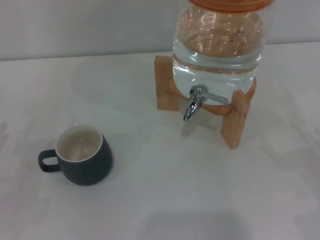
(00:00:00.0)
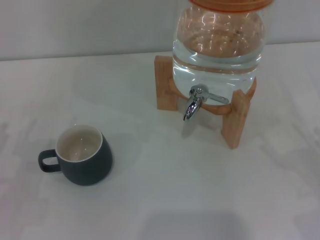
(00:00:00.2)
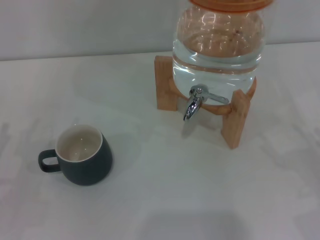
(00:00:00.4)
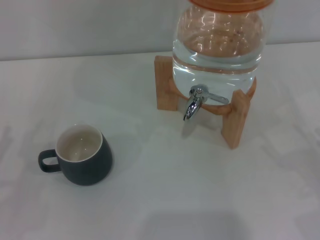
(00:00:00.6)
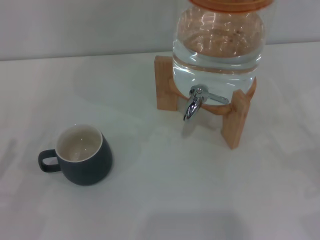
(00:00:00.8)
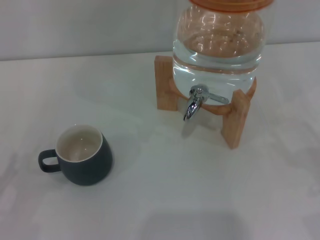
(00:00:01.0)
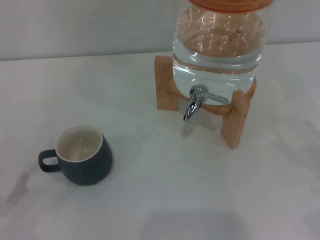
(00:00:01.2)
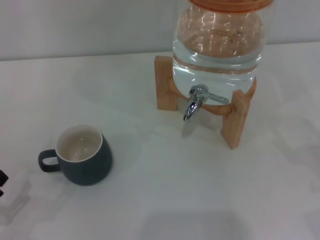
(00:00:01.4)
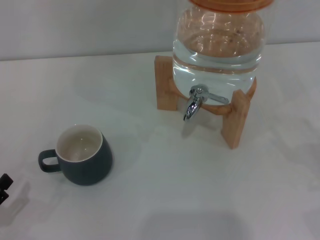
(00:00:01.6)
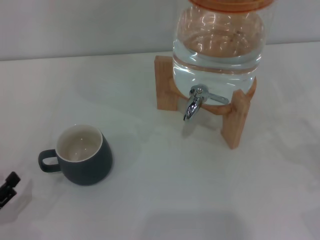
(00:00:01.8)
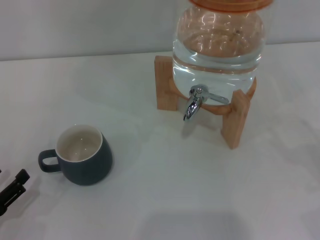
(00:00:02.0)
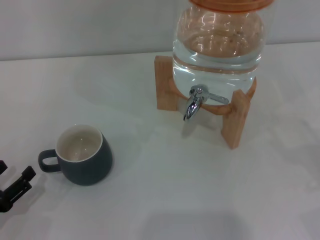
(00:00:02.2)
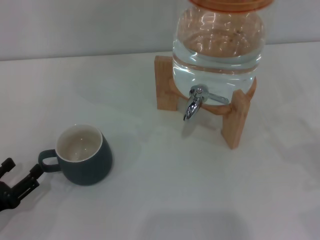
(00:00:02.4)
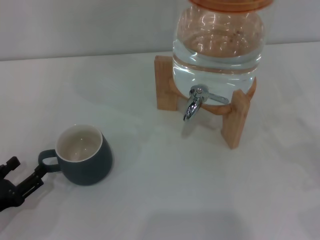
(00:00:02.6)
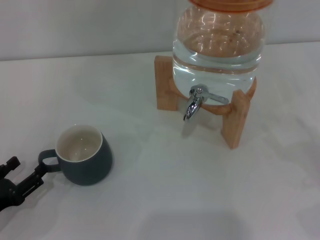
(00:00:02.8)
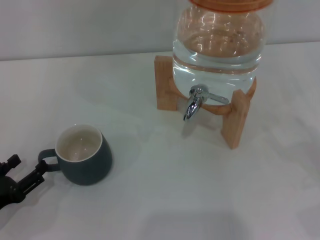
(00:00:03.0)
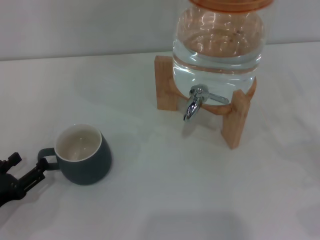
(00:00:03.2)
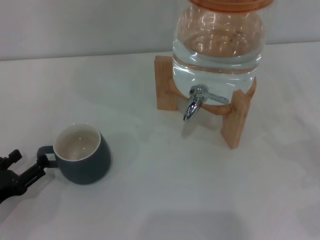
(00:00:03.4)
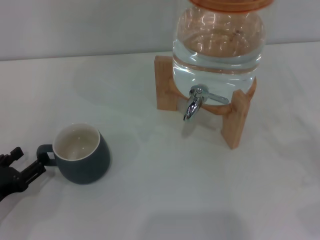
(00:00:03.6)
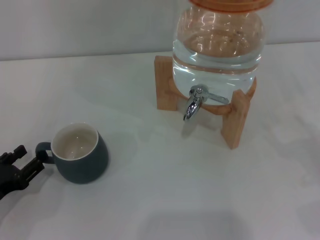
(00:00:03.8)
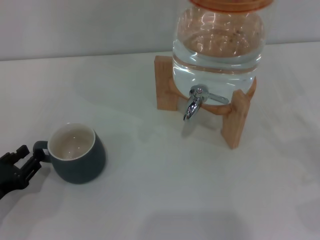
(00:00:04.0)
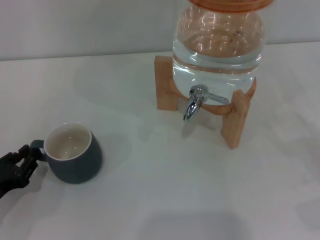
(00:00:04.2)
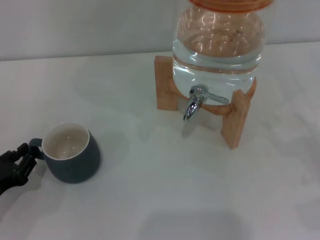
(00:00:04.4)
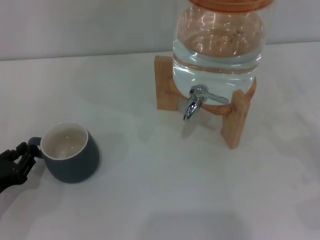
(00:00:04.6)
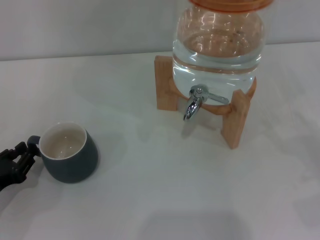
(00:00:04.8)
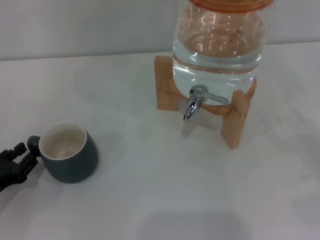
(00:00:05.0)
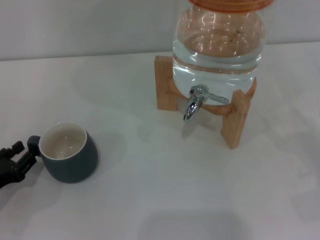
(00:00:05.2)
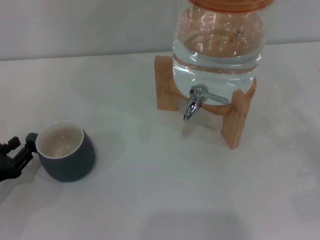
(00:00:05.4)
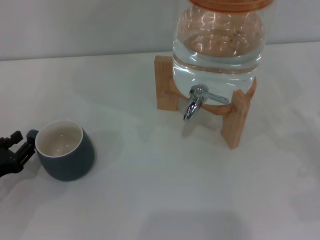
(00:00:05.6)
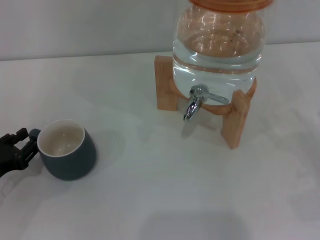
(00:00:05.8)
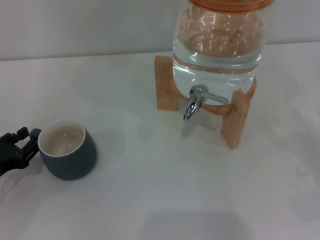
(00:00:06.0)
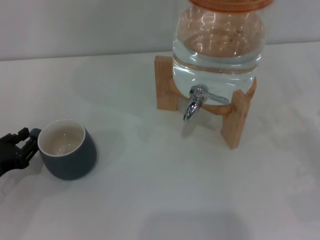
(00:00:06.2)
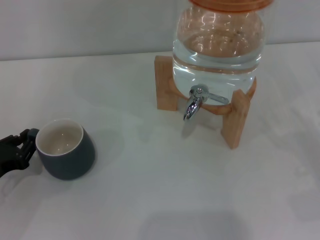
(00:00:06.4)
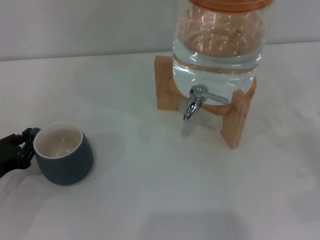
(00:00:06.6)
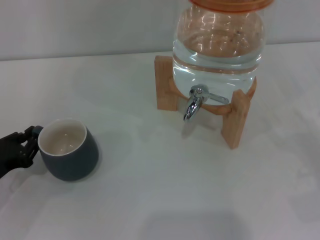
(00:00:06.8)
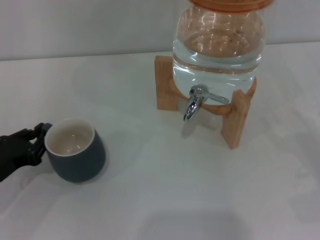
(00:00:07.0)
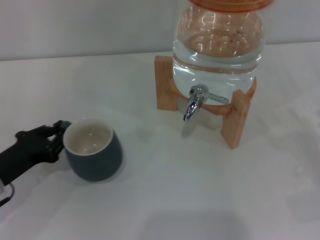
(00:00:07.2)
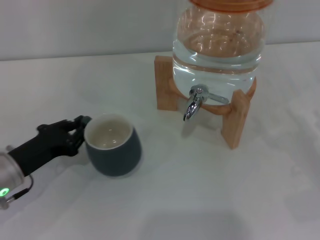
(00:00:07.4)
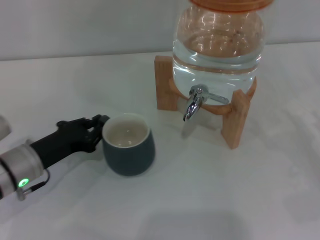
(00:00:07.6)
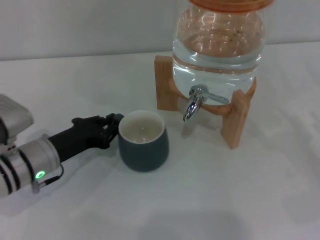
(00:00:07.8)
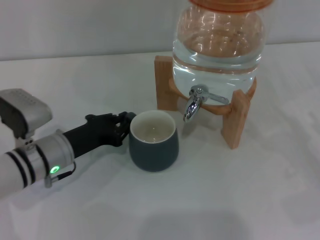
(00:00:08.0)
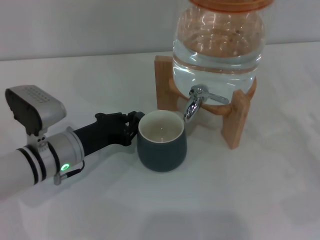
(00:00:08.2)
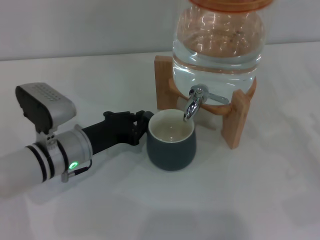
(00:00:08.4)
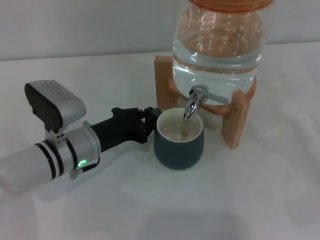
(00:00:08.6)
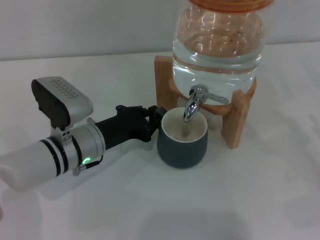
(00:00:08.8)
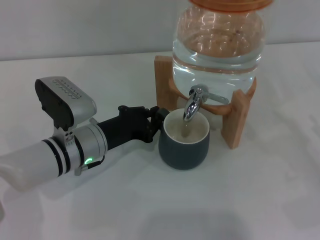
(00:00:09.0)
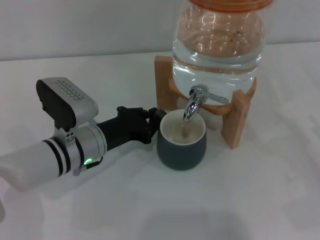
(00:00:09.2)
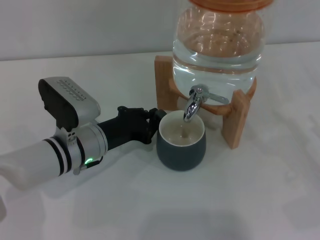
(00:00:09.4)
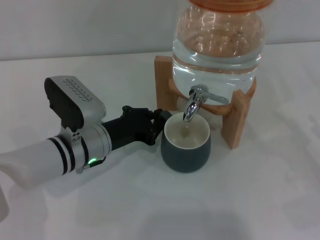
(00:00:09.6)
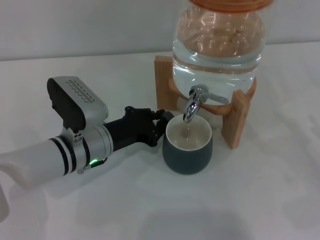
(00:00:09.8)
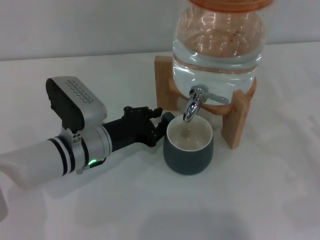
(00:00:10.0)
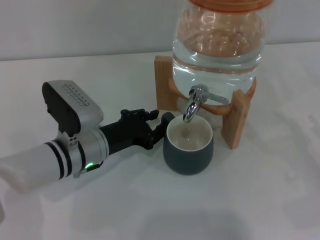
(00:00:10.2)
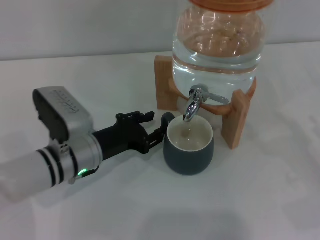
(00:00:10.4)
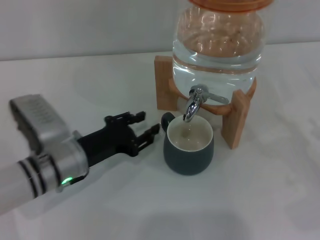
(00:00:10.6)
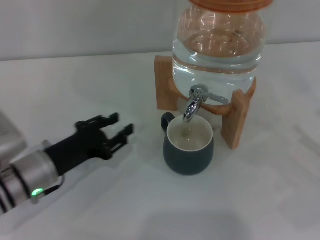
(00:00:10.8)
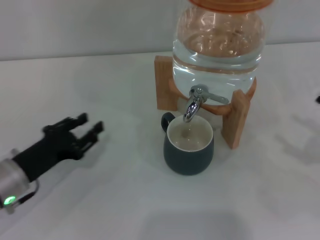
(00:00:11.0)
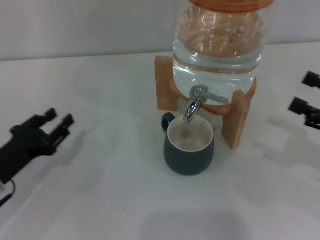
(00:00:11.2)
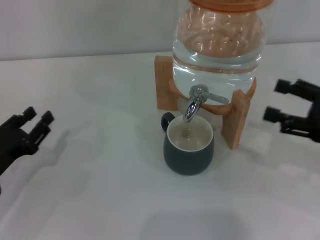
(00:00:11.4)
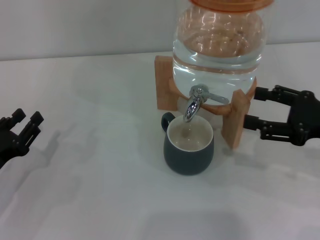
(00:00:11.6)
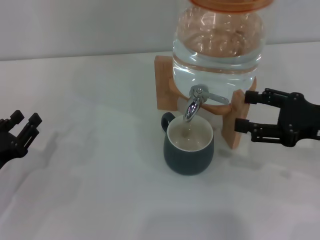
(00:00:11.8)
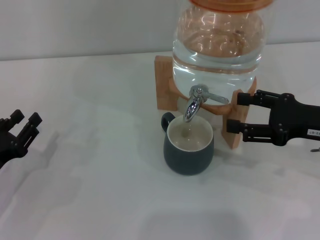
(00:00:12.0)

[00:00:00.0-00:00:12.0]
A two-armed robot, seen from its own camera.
Task of the whole recording: the left gripper pick up the black cup and place it horizontally under the faucet, the right gripper turn on the faucet to fill the cup, and then turn off the faucet.
Step, 00:00:00.0 to 00:00:09.4: Move the cup beneath the water dispenser nozzle with the left gripper.
00:00:01.6 to 00:00:03.0: The left gripper shifts roughly 5 cm forward.
00:00:03.0 to 00:00:04.4: The left gripper closes up.
00:00:04.4 to 00:00:06.0: The grippers move only a little.
00:00:06.0 to 00:00:07.6: The left gripper shifts some 10 cm to the right, and closes.
00:00:07.6 to 00:00:09.0: The left gripper moves to the right, approximately 10 cm.
00:00:09.0 to 00:00:10.4: The grippers move only a little.
00:00:10.4 to 00:00:12.0: The right gripper heads to the left, upward and forward, covering some 15 cm, while the left gripper travels to the left and backward by about 20 cm.

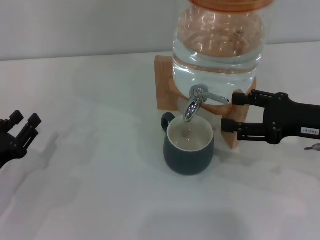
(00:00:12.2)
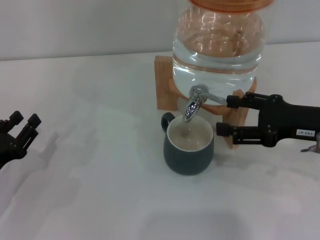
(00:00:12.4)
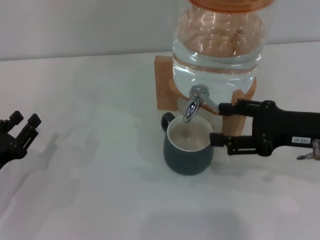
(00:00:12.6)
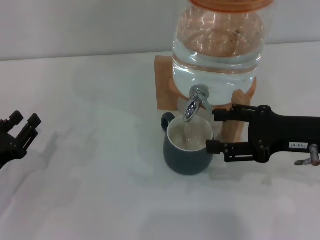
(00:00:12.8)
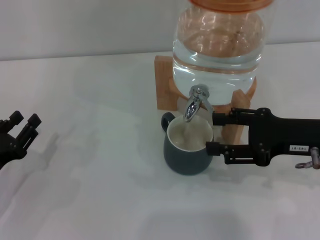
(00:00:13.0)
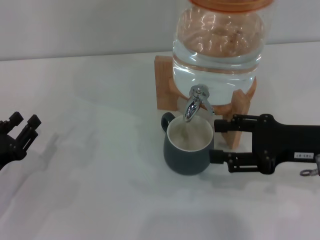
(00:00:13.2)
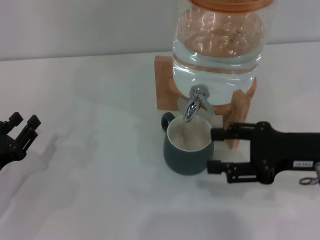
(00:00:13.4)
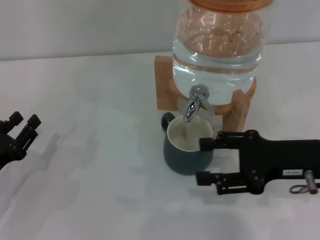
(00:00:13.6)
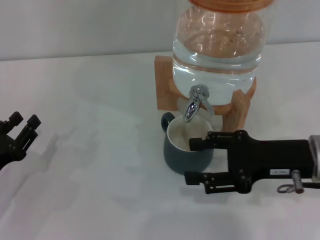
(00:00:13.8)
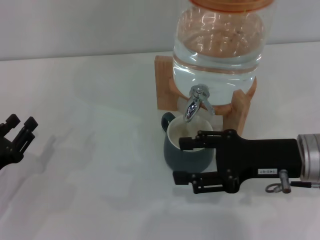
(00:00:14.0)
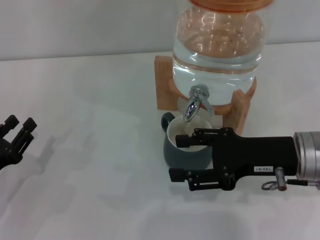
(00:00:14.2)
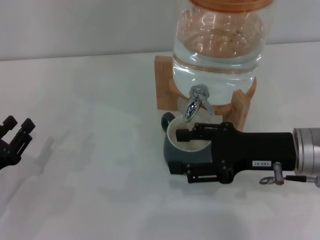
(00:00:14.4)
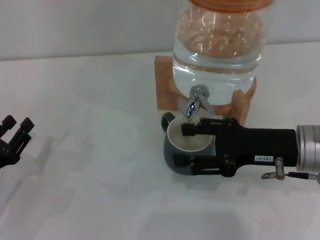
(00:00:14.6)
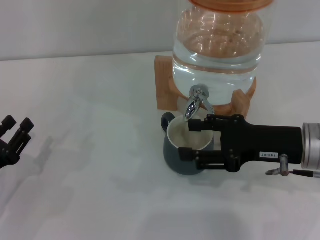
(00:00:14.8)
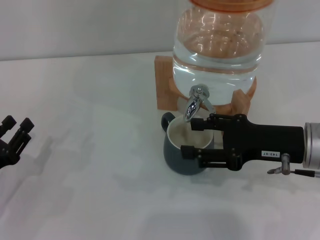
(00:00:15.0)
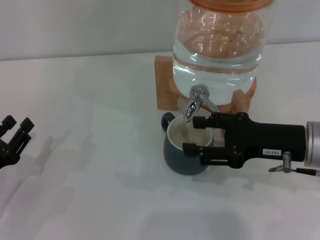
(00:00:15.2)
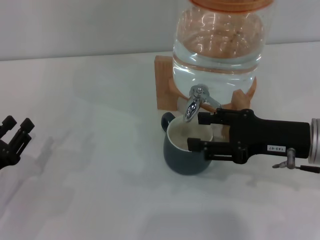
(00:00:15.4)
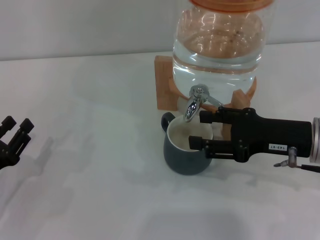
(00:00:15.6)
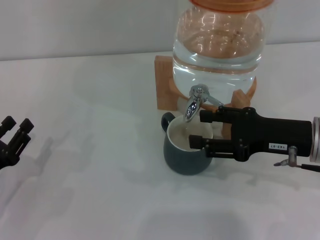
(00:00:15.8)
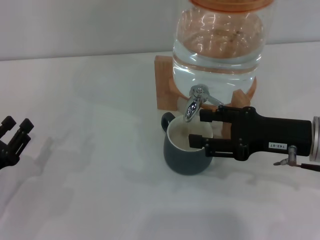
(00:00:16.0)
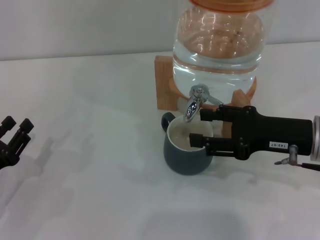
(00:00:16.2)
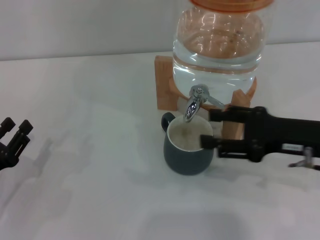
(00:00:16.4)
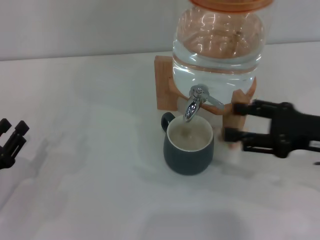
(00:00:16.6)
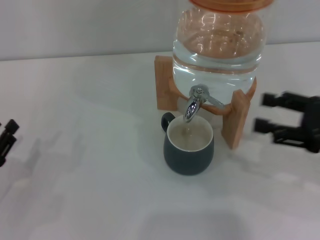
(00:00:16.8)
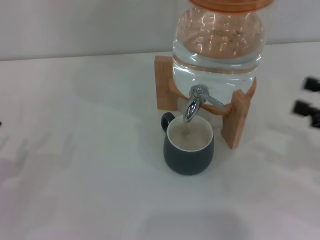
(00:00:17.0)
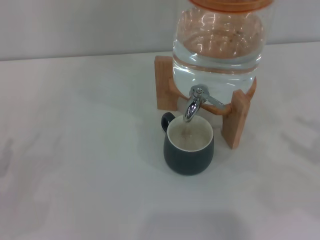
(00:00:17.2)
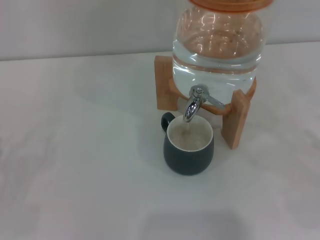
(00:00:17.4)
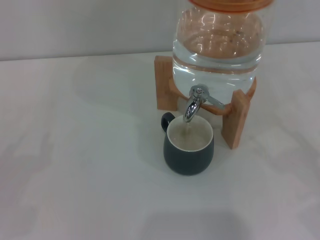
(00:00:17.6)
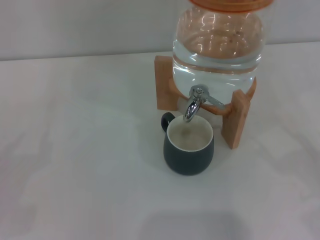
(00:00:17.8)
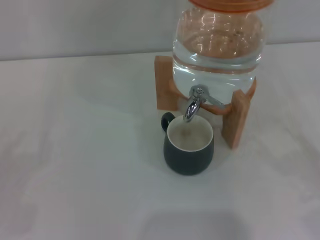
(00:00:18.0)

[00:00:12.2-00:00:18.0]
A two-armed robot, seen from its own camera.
Task of the whole recording: the left gripper pick up the black cup and place it horizontally under the faucet, the right gripper turn on the faucet to fill the cup, and then turn off the faucet.
Step, 00:00:14.2 to 00:00:16.8: Close the dispenser valve with the right gripper.
00:00:12.2 to 00:00:13.6: The grippers make only small movements.
00:00:13.6 to 00:00:15.0: The grippers make only small movements.
00:00:15.0 to 00:00:16.6: The right gripper ends up some 5 cm from where it was.
00:00:16.6 to 00:00:18.0: The right gripper shifts some 15 cm to the right, backward and downward. Meanwhile the left gripper shifts approximately 5 cm to the left.
